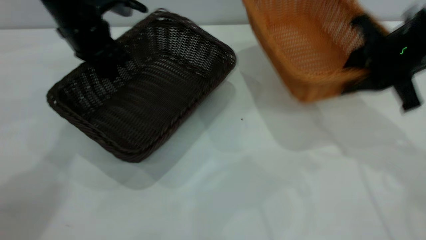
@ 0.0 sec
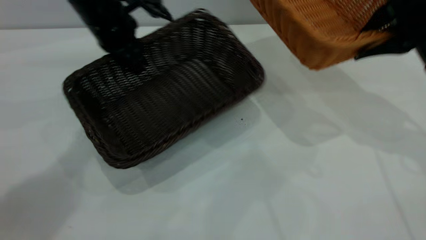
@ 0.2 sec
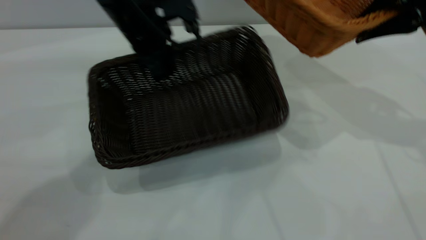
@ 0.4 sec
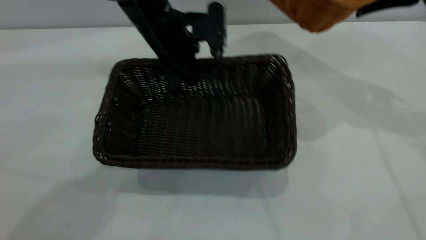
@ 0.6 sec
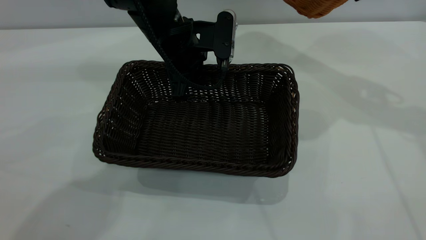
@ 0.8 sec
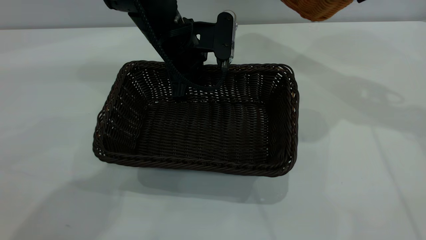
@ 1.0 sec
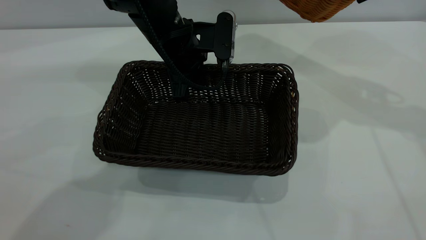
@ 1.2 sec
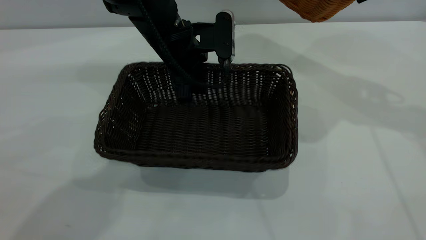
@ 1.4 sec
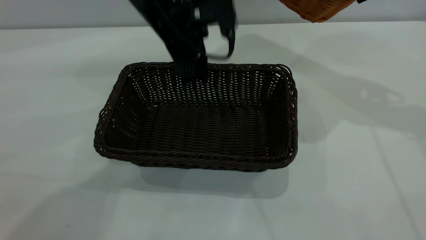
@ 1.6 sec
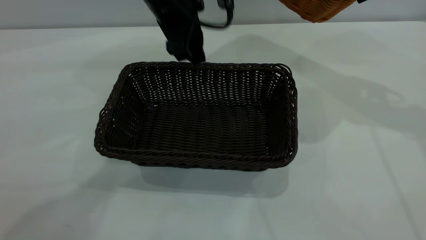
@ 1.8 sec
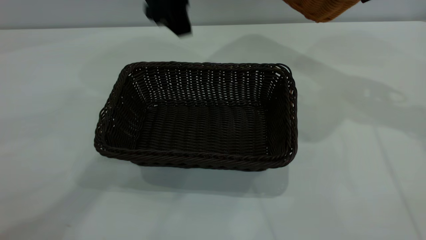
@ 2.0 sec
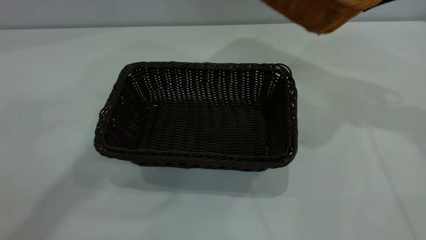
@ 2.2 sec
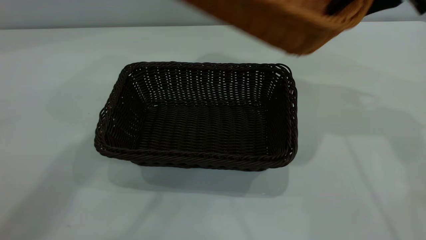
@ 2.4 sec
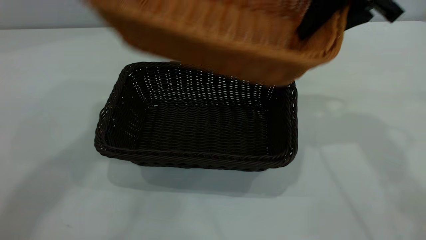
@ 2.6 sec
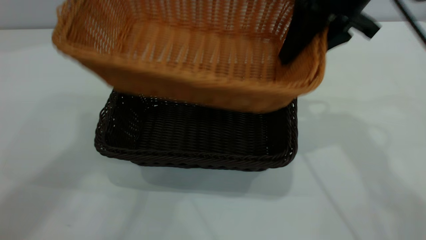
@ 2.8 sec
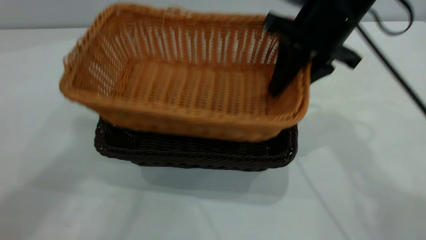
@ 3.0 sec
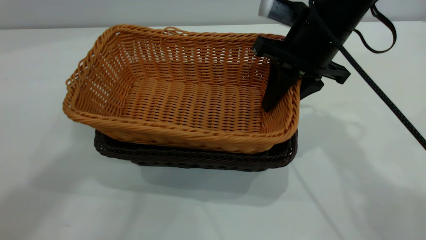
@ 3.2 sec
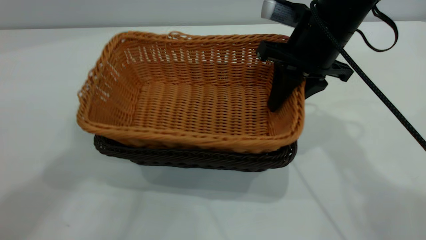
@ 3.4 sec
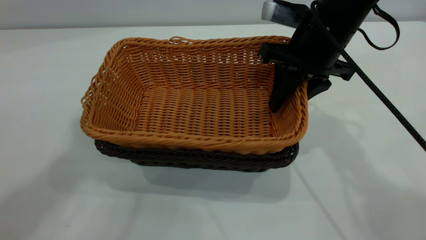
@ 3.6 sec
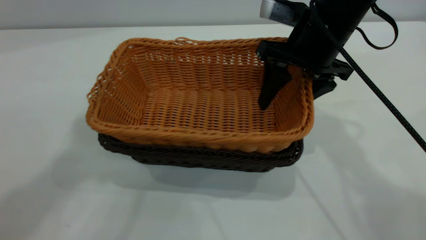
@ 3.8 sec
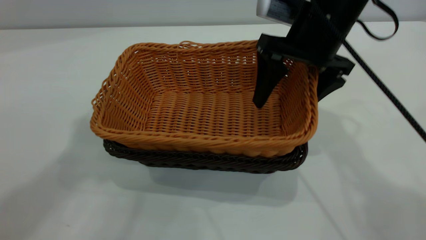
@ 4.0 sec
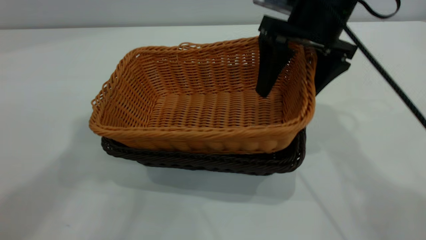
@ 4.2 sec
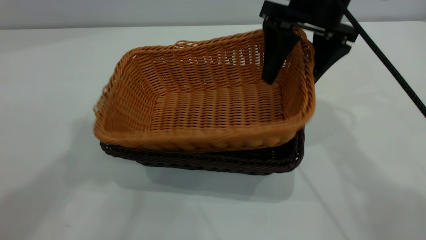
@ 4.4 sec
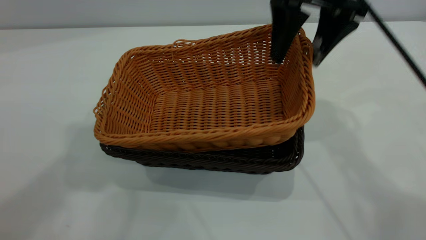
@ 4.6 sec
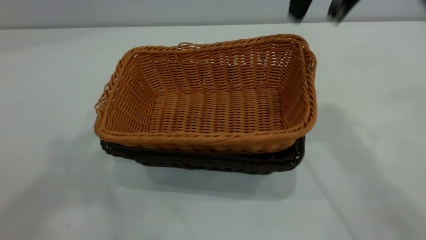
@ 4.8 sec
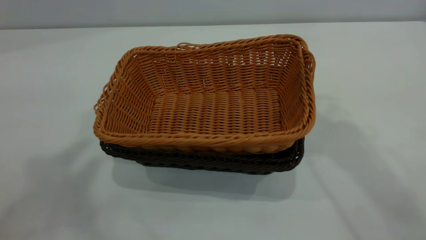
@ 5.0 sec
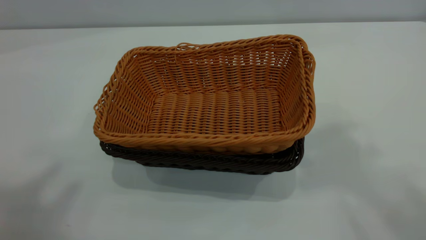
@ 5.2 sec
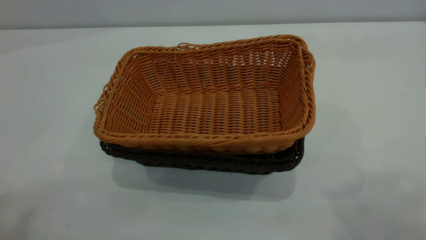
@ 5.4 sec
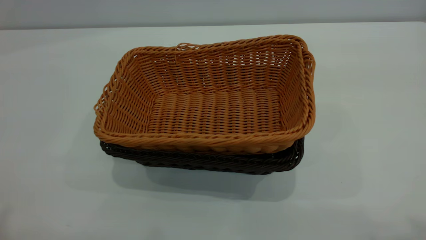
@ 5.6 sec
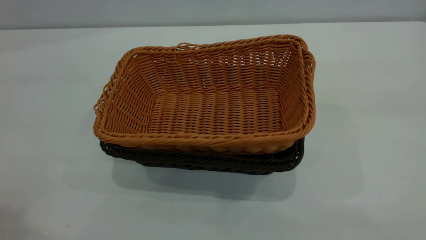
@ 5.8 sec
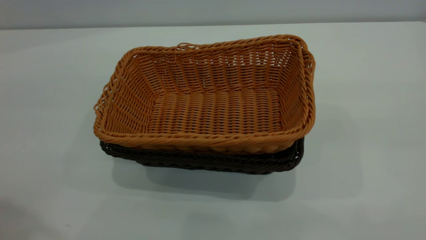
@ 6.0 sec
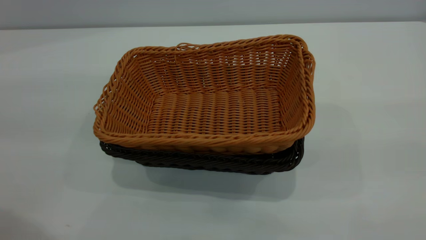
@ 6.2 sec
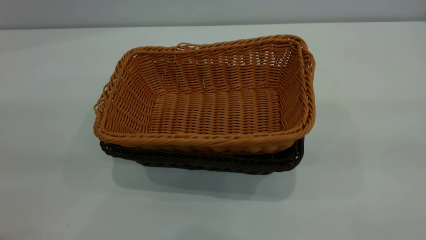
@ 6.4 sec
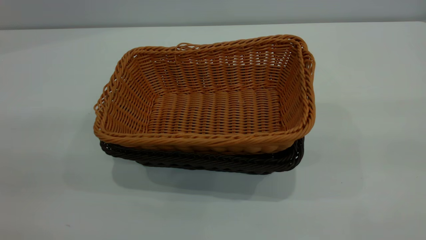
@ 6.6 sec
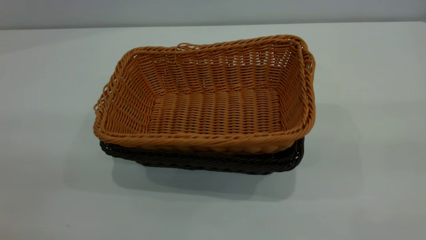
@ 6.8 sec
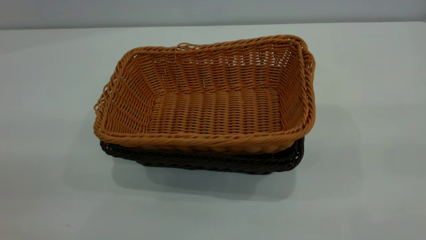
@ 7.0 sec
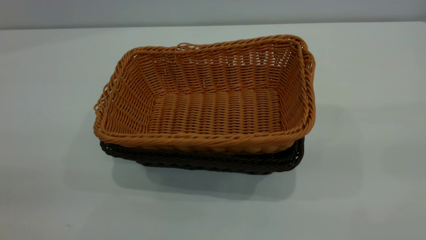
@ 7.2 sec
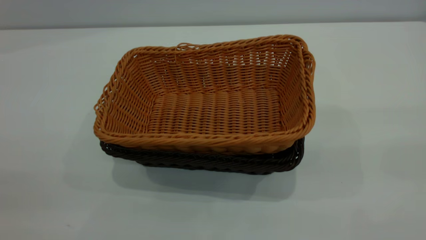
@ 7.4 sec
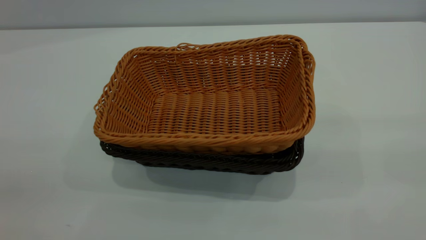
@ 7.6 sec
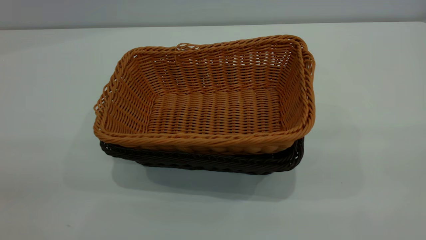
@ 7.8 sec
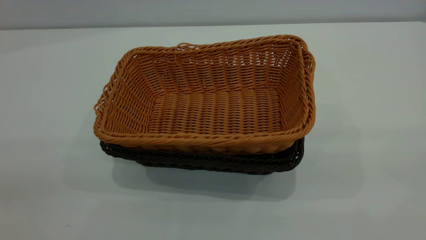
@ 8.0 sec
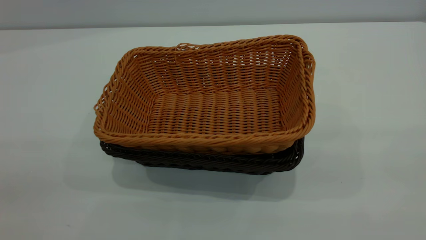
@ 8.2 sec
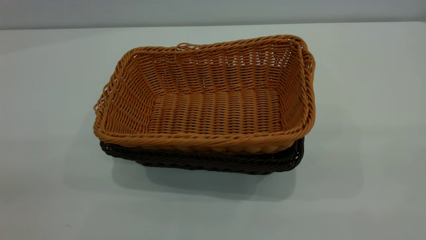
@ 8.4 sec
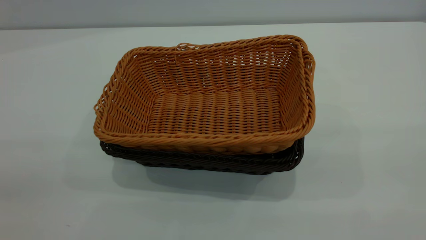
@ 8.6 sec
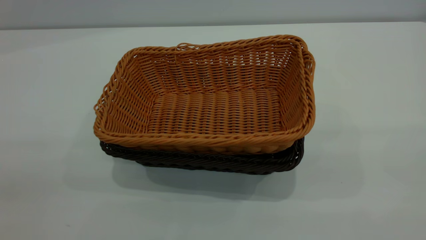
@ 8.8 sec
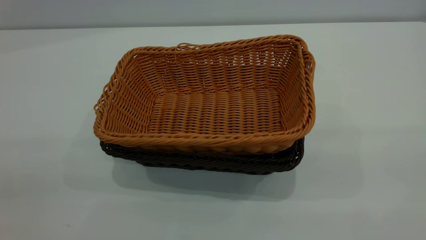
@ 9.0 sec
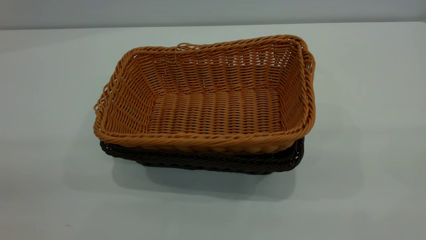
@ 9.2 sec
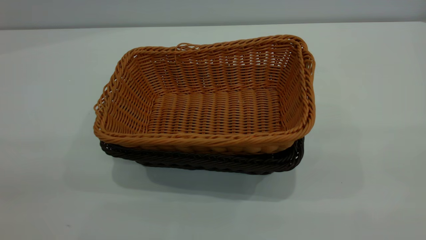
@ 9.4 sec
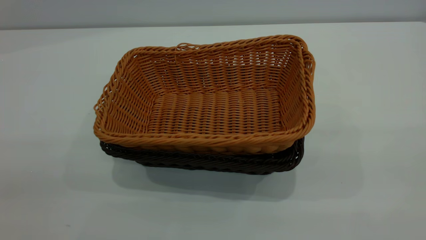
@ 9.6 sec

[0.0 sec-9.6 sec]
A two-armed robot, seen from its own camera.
Task of the whole recording: the left gripper grasp the black basket and place it in the center of the table, the right gripper grasp the brown basket and place it inside the black one.
Step, 0.0 sec to 1.8 sec: Move the dark basket to the center of view.
Step, 2.0 sec to 4.6 sec: Place the light basket on the dark basket.
0.0 sec to 1.6 sec: The left gripper moves to the right, roughly 15 cm, and opens its fingers. Meanwhile the right gripper shifts some 10 cm upward and forward.
1.6 sec to 3.2 sec: The right gripper travels to the left and downward by approximately 20 cm; the left gripper is displaced upward by some 35 cm.
3.2 sec to 4.8 sec: The right gripper goes approximately 15 cm upward, and opens. The left gripper changes place by about 5 cm.
4.8 sec to 6.4 sec: The right gripper heads backward and to the right, covering some 30 cm.
8.0 sec to 9.6 sec: Both grippers stay about where they are.
